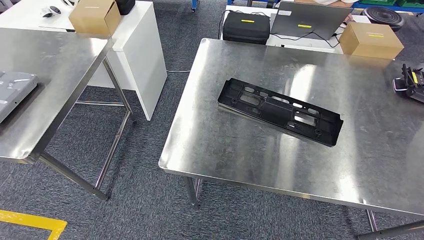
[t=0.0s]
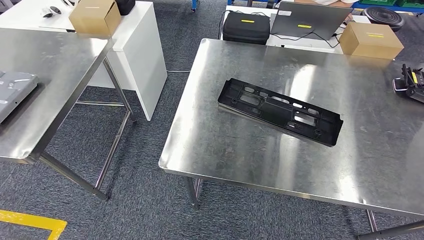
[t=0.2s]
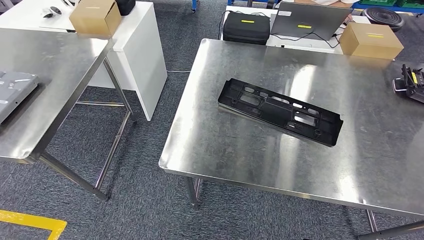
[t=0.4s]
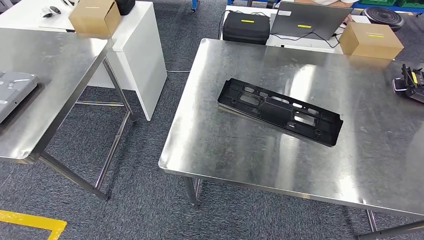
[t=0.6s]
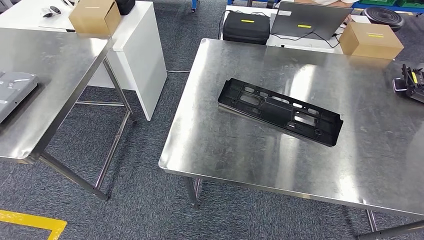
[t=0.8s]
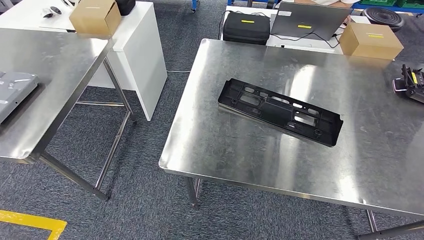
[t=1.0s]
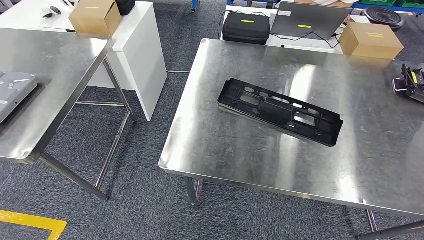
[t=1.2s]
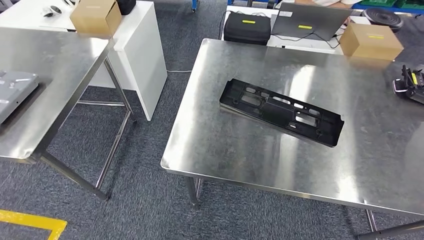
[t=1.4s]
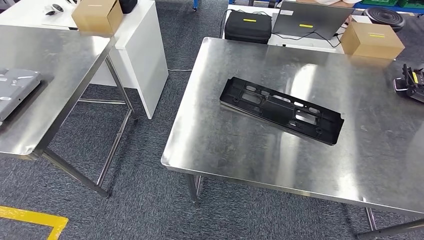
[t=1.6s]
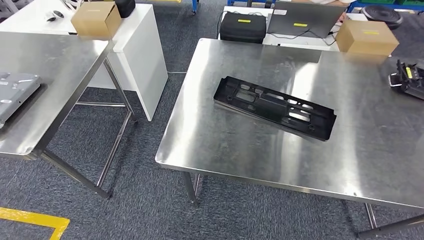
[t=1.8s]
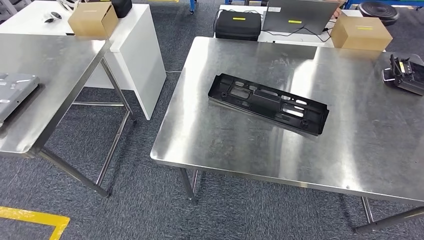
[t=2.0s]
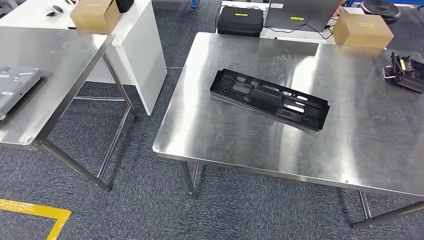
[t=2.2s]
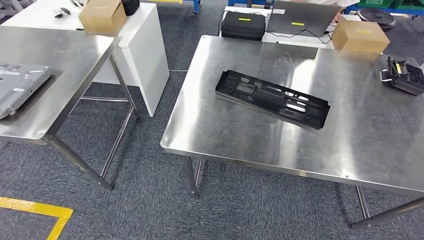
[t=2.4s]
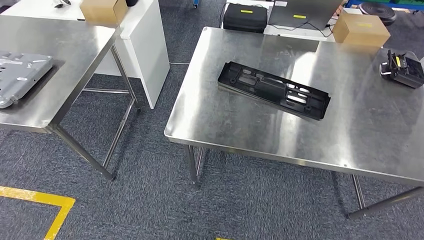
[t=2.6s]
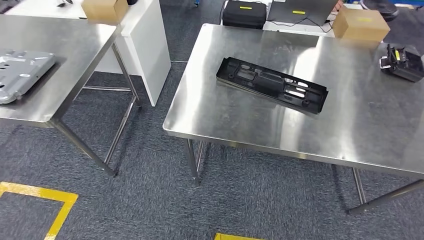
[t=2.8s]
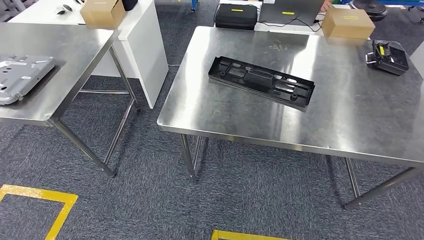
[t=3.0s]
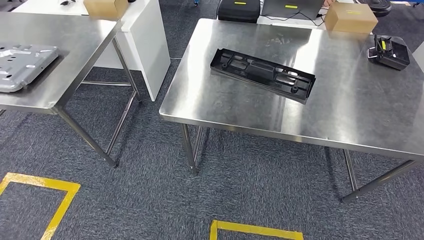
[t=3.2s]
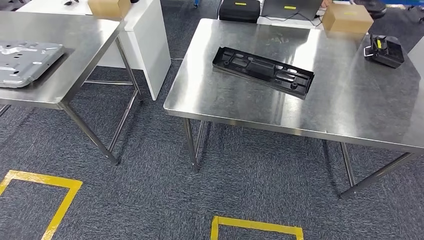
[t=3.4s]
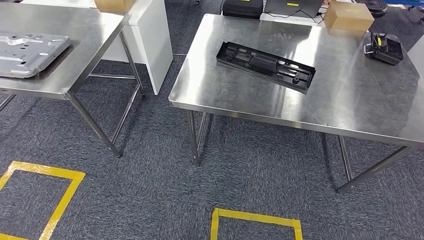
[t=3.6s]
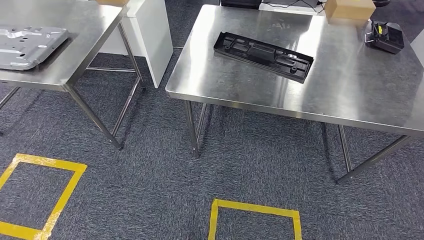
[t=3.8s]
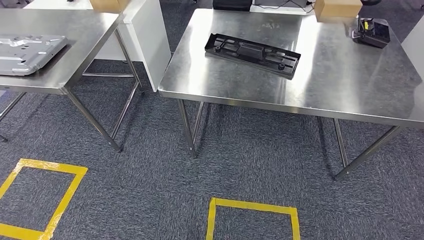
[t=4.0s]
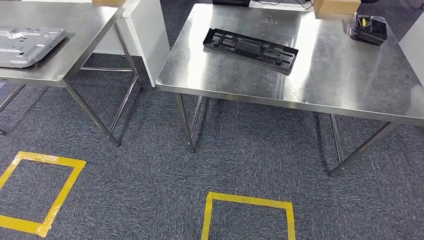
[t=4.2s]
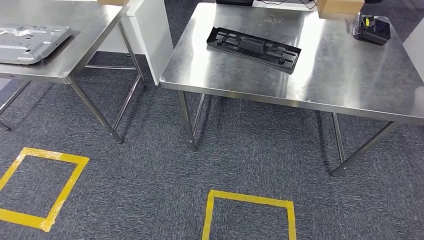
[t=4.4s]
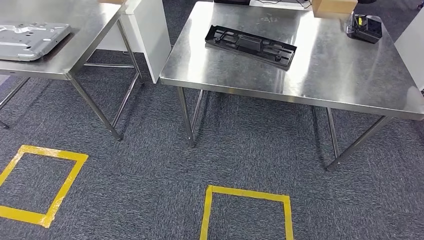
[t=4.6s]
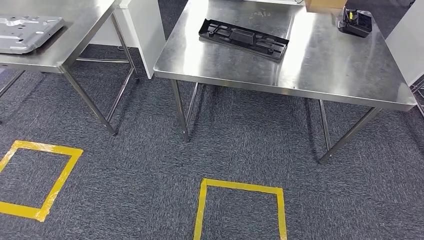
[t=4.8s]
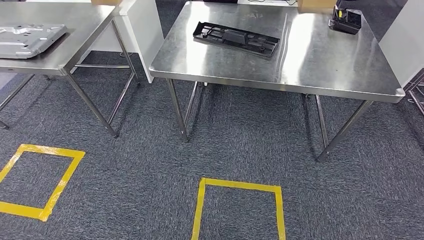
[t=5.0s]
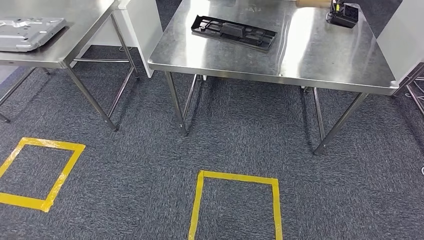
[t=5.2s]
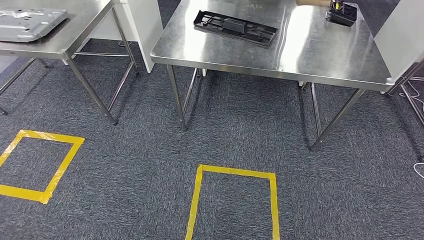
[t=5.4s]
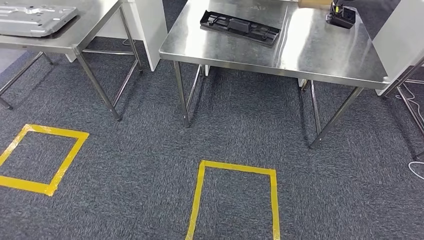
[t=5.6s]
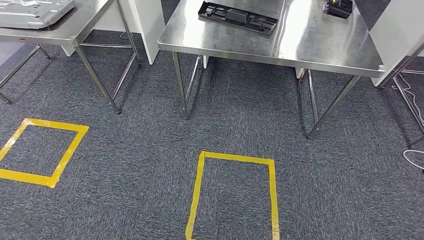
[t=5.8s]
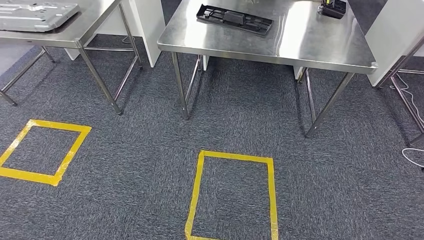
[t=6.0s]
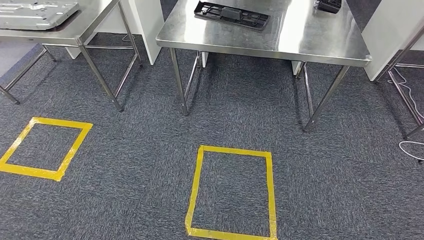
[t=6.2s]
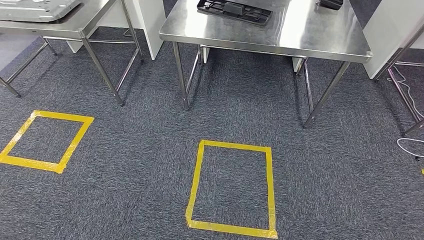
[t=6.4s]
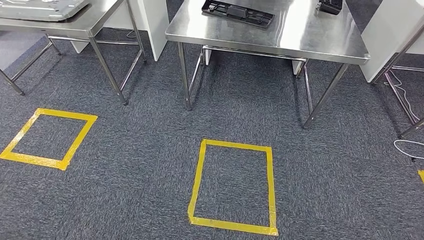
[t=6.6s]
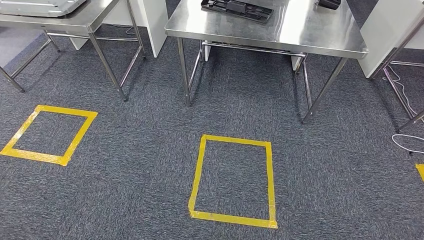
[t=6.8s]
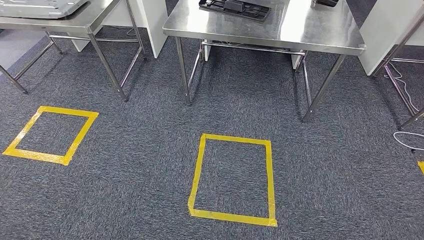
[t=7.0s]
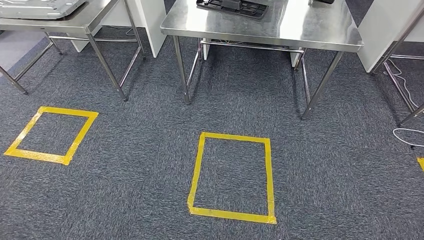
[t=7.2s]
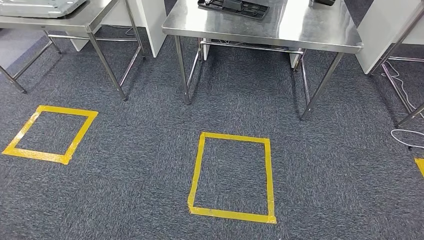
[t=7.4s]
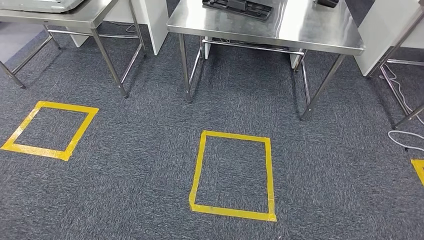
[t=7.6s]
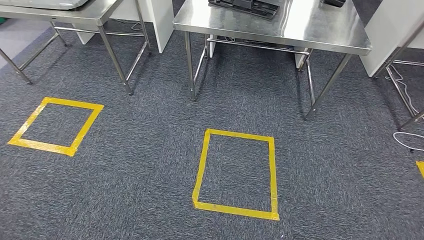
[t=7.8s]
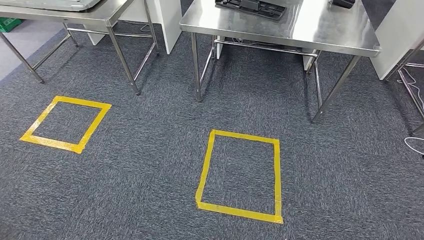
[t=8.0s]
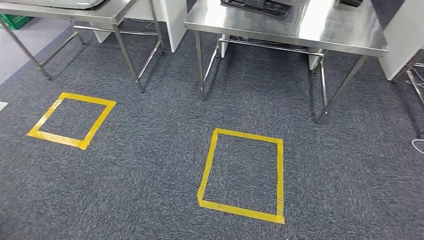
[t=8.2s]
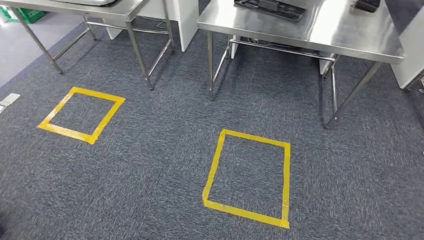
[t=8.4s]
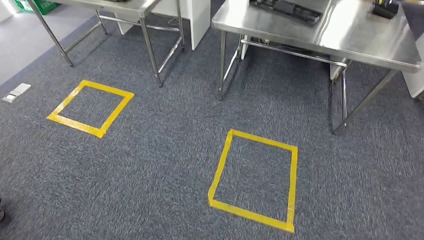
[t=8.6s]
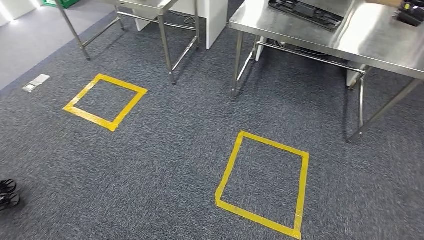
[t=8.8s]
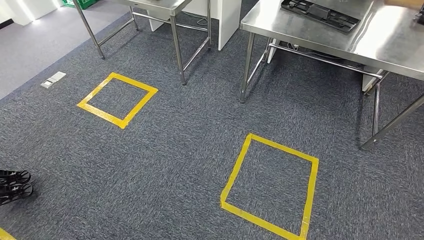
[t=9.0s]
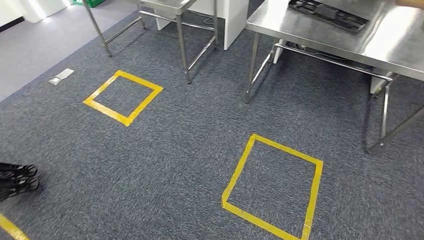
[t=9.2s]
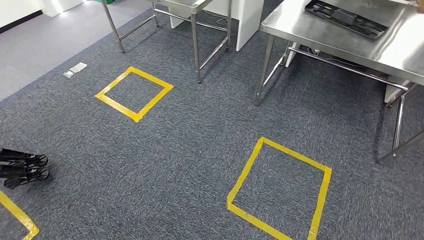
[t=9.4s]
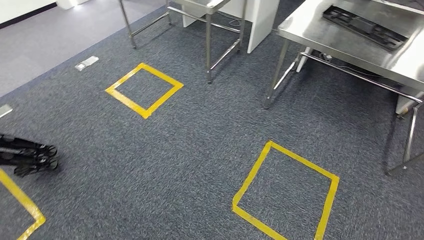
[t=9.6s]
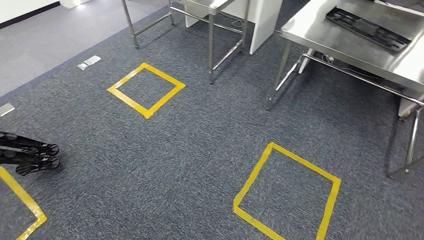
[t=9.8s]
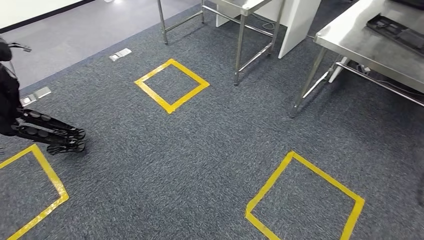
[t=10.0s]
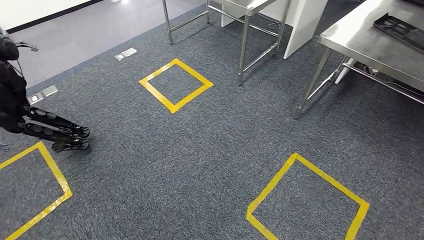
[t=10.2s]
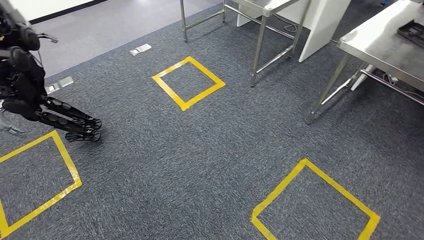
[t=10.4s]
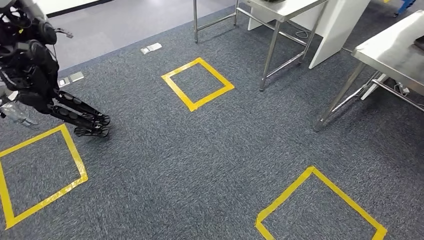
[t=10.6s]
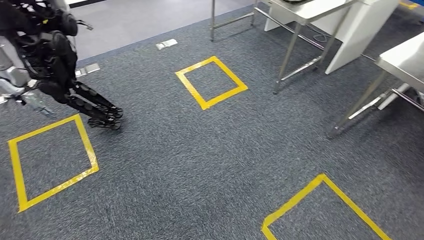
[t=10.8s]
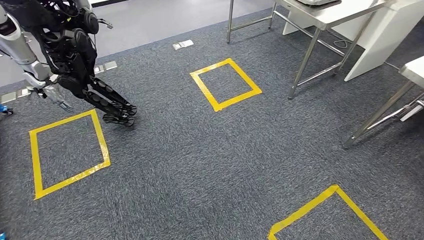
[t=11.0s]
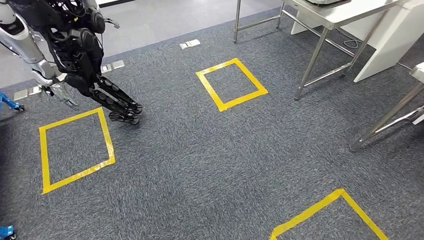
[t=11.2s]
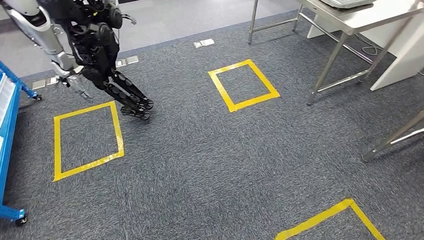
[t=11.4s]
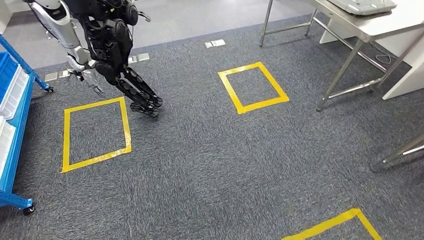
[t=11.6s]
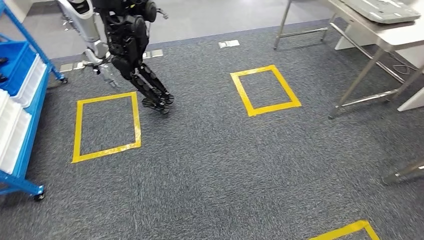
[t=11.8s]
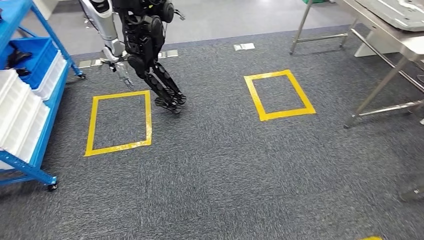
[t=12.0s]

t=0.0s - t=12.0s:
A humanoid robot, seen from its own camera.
Step, t=0.0s - t=2.8s: Insert the large material into the corresponding slot on the workbench.
t=0.0s - t=1.6s: The left hand shifts some 5 cm to the left.

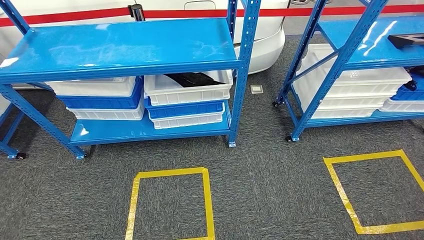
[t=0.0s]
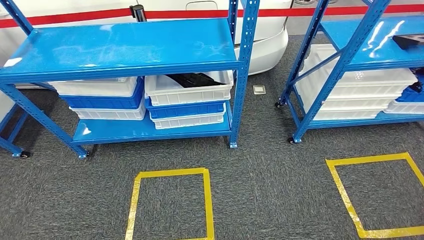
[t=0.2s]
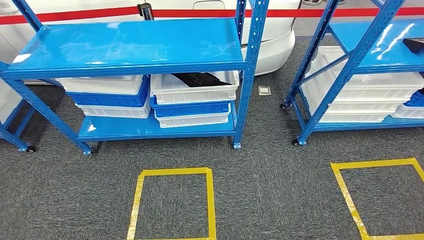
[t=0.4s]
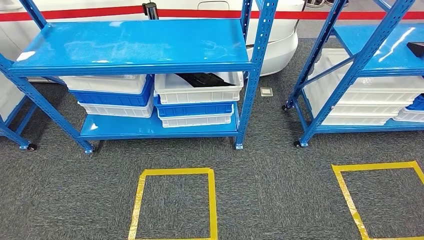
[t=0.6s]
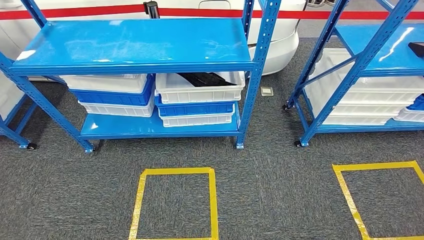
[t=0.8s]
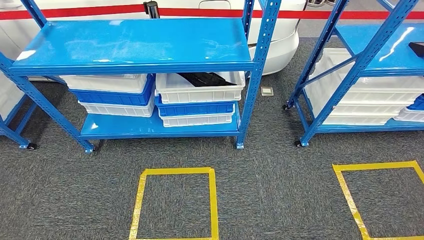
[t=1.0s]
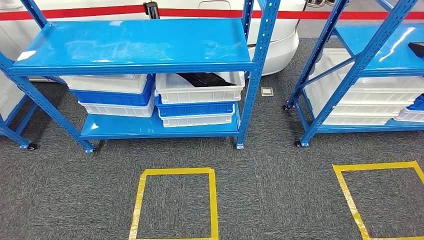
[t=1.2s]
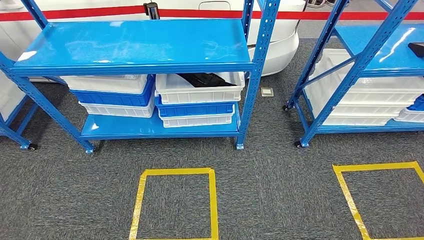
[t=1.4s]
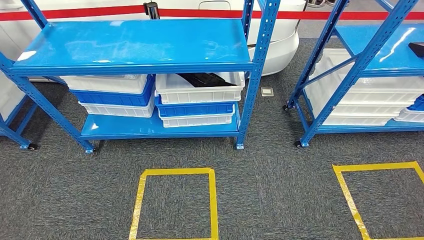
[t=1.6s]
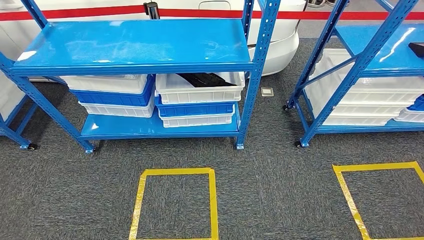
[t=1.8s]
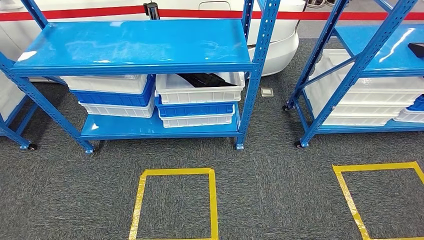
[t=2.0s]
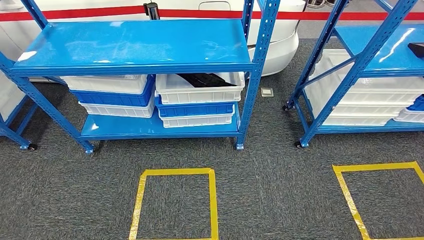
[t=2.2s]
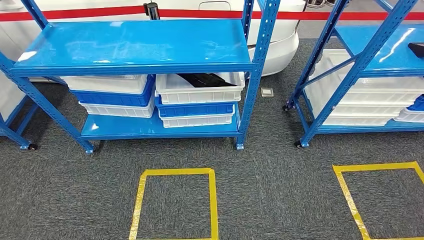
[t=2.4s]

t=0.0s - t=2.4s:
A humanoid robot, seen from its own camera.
Step, t=0.0s - t=2.2s: Move to the initial position of the shelf.
t=1.2s - t=2.4s: The hands make only small movements.
